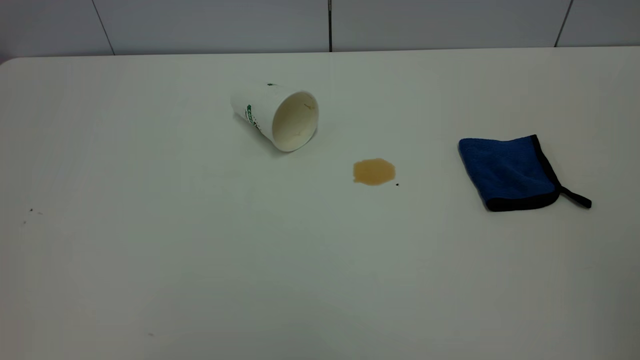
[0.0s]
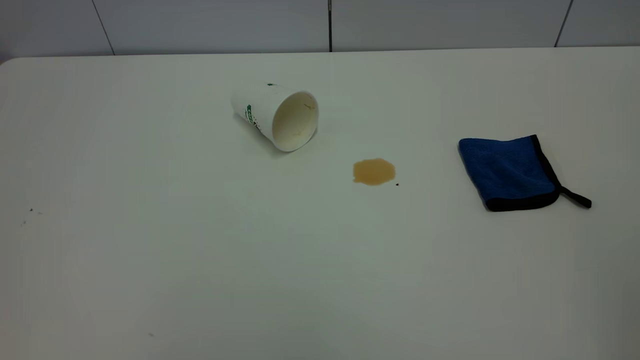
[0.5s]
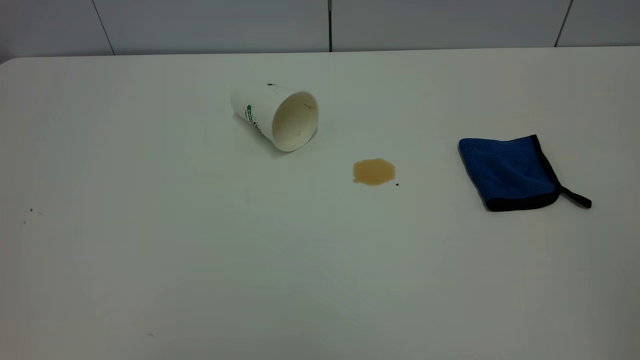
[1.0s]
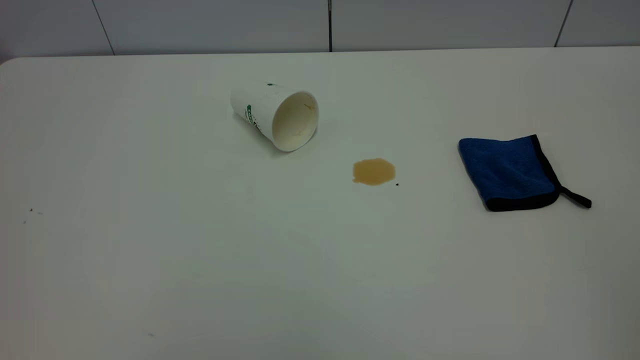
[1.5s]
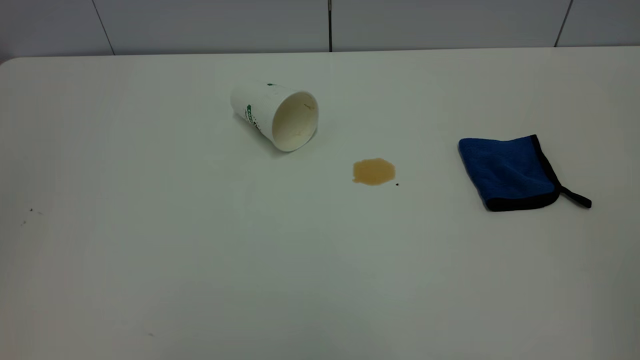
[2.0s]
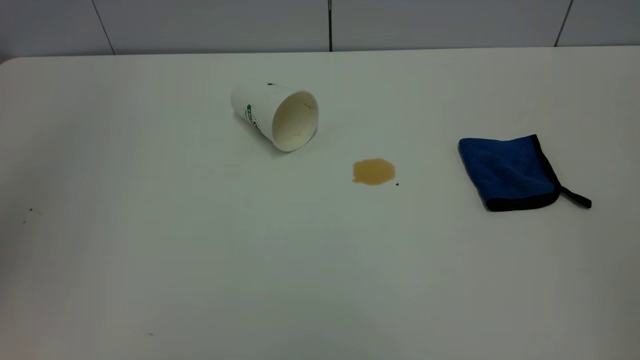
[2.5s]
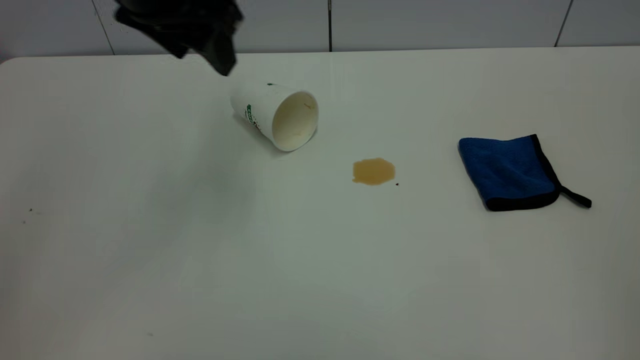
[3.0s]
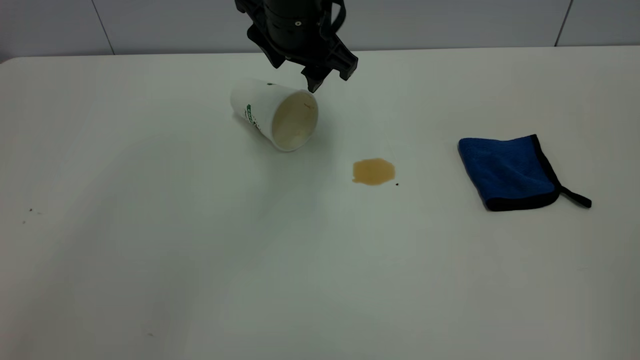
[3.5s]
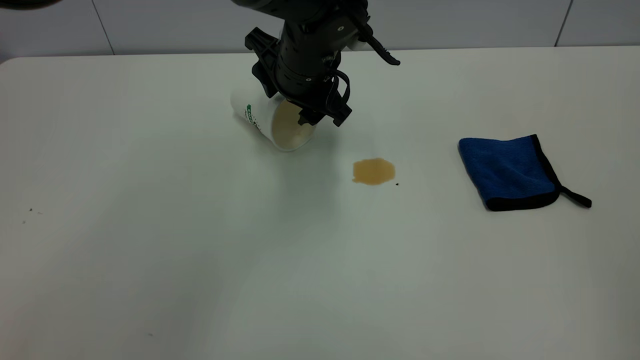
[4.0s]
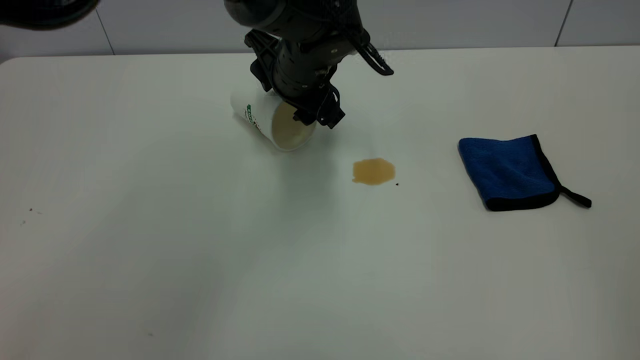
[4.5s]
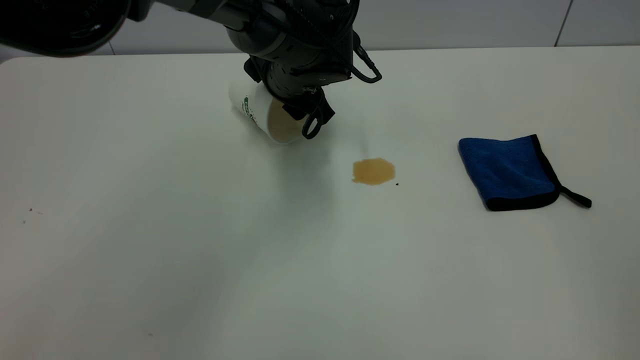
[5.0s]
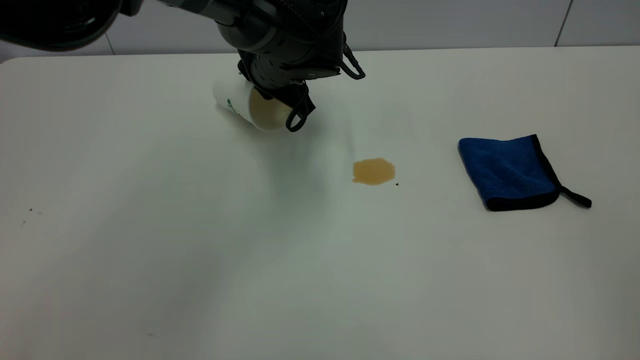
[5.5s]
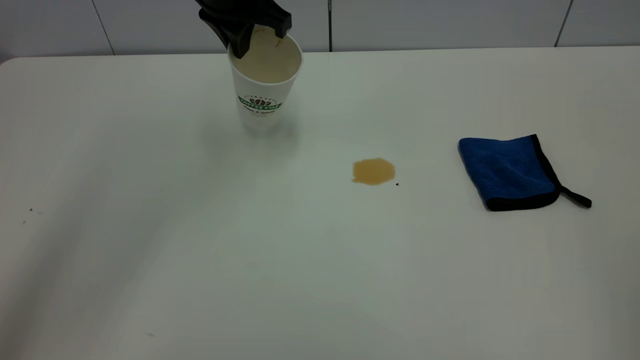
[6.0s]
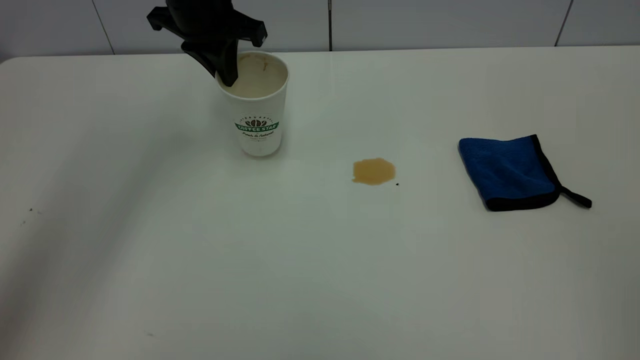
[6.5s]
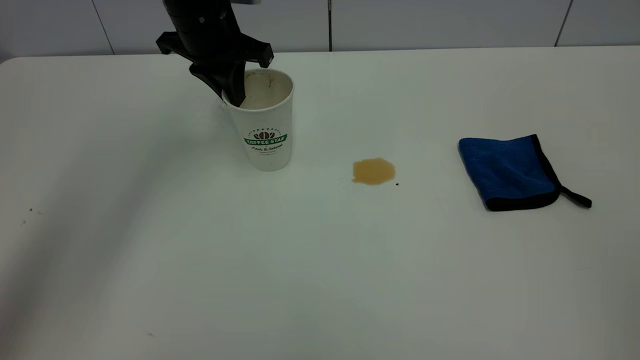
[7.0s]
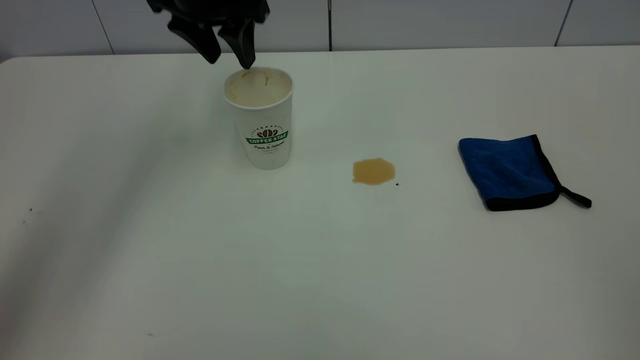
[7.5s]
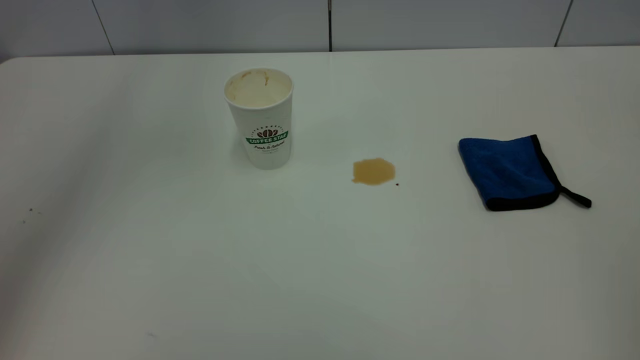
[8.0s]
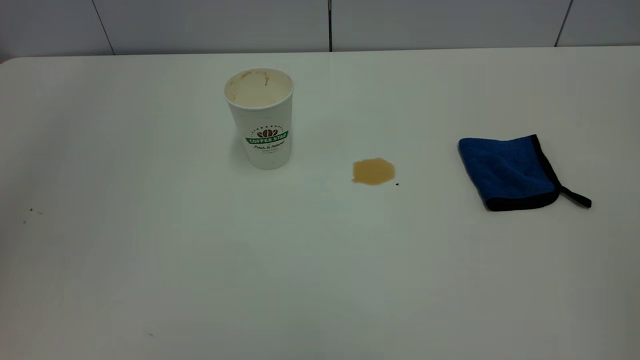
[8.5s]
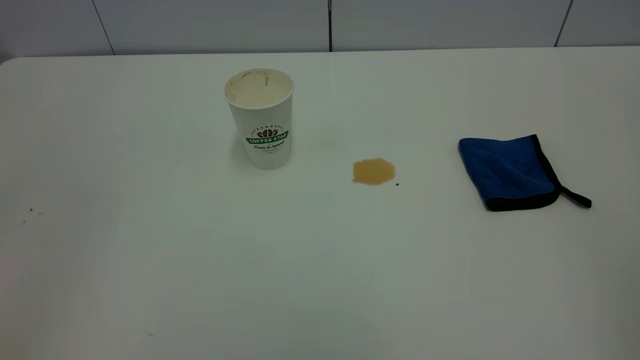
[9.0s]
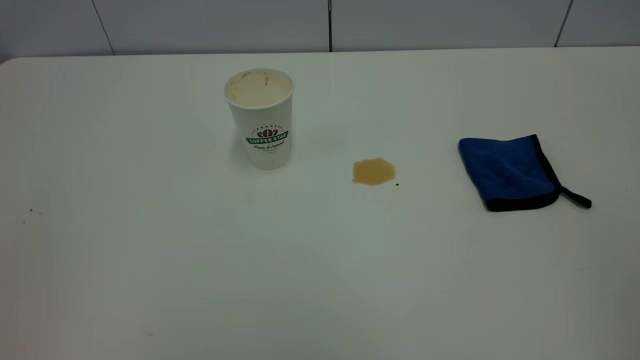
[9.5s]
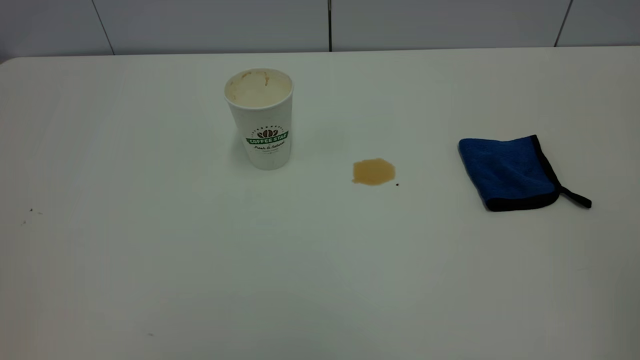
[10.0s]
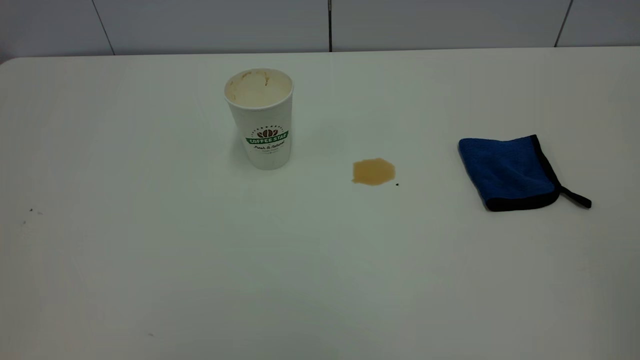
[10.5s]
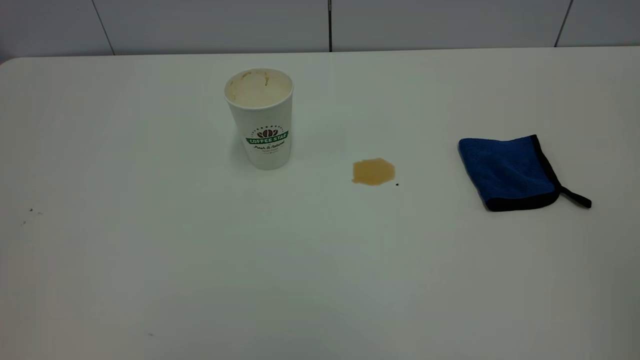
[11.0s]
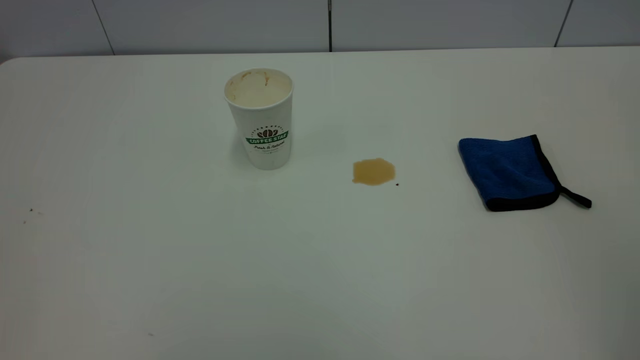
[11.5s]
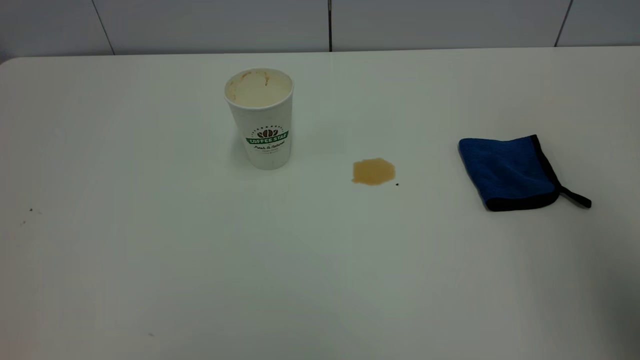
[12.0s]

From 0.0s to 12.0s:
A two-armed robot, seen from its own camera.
Task of the whole recording: the left gripper pick up the fallen cup and place it upright, the right gripper grasp the blue rag and wipe the tea stain on the table, the right gripper put the blue rag back in its original position.
Step, from 0.0s to 7.5s: Stand the paper cup upright.
From 2.0s to 4.0s: The left gripper is displaced forward, to the right and downward by roughly 50 cm.
From 4.0s to 6.0s: The left gripper goes some 15 cm upward and to the left, and closes.
From 6.0s to 8.0s: The left gripper is displaced upward by approximately 25 cm, and opens up.
From 8.0s to 10.0s: The left gripper travels backward by some 40 cm.
From 10.0s to 12.0s: The right gripper travels forward by roughly 20 cm, and opens.

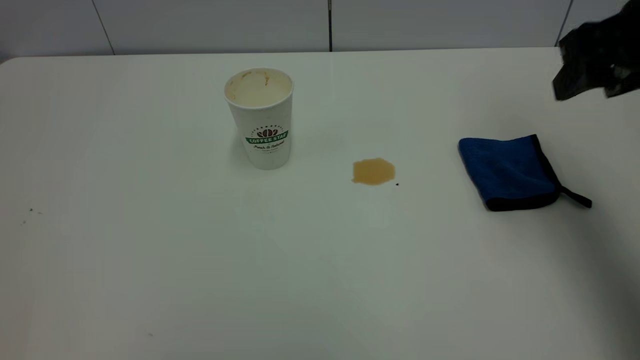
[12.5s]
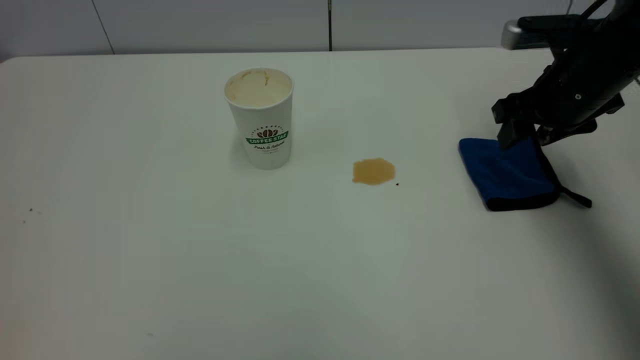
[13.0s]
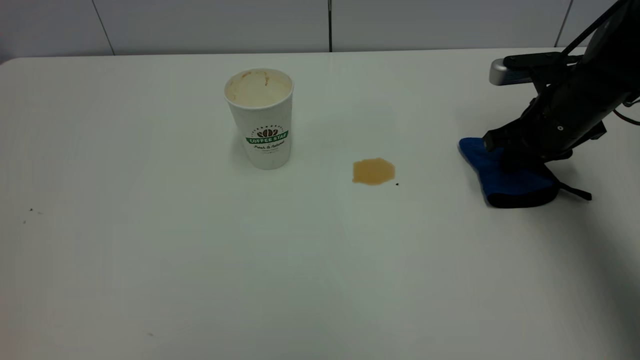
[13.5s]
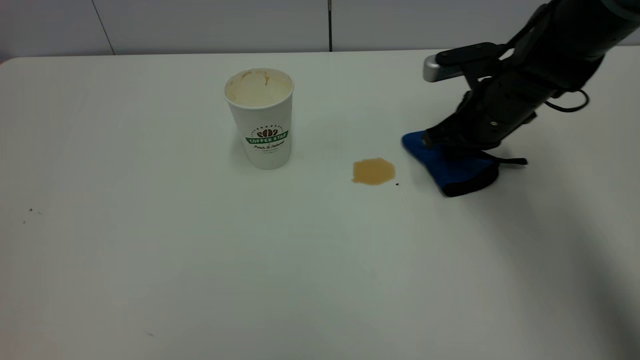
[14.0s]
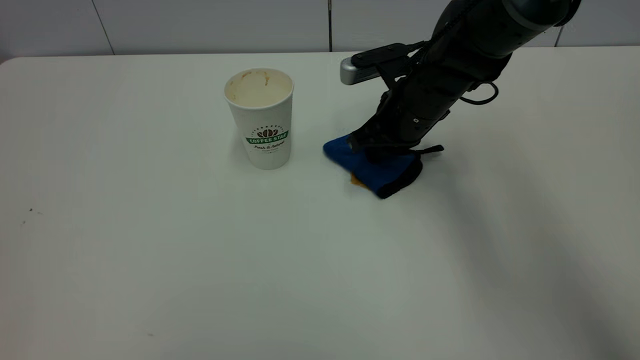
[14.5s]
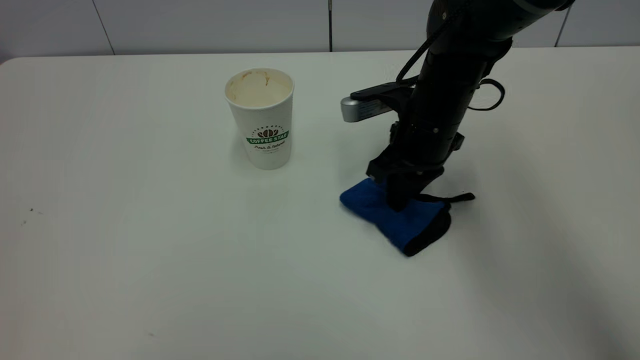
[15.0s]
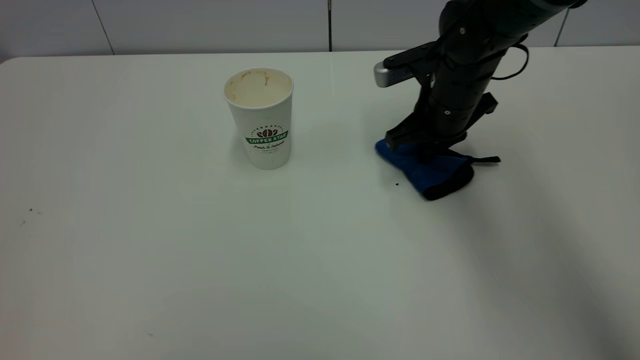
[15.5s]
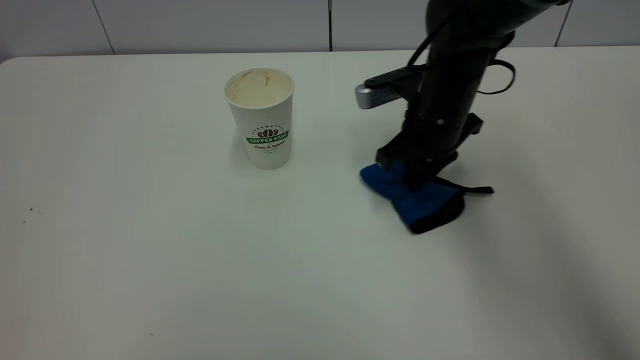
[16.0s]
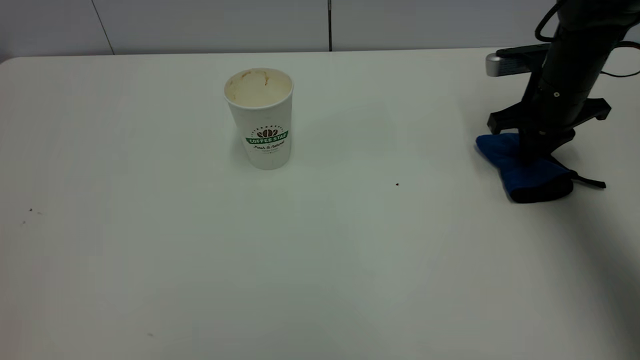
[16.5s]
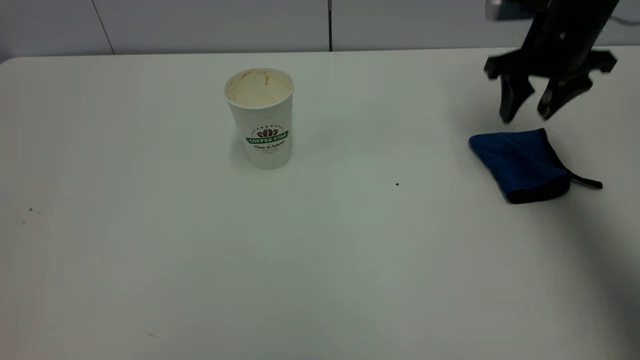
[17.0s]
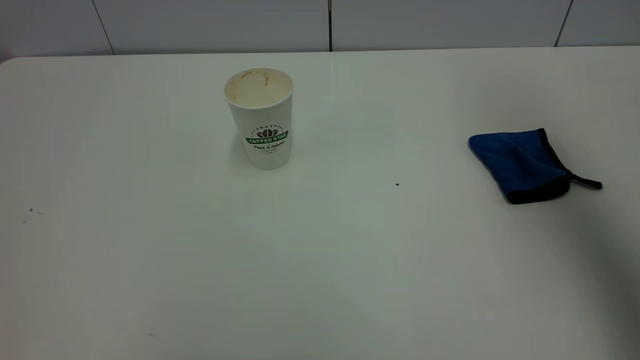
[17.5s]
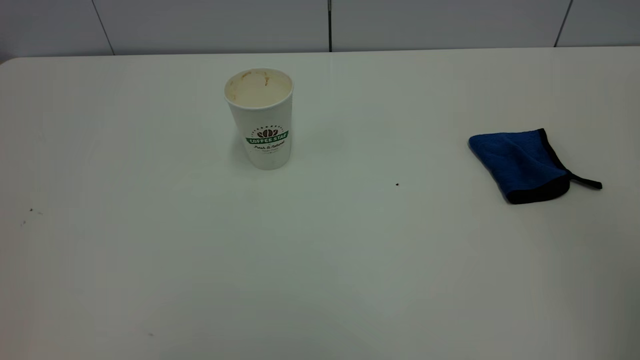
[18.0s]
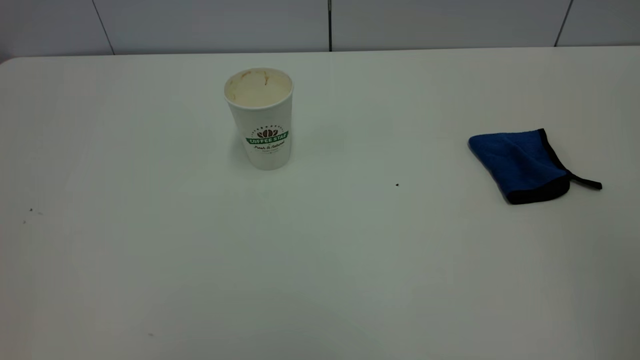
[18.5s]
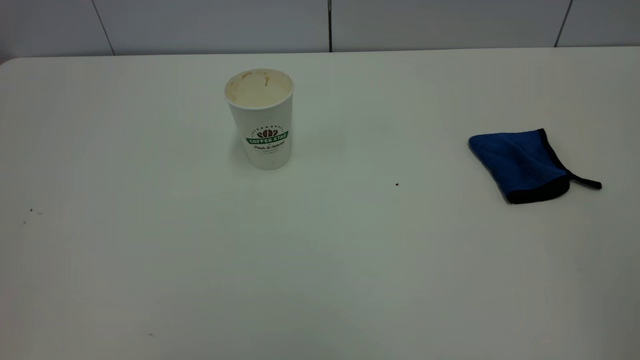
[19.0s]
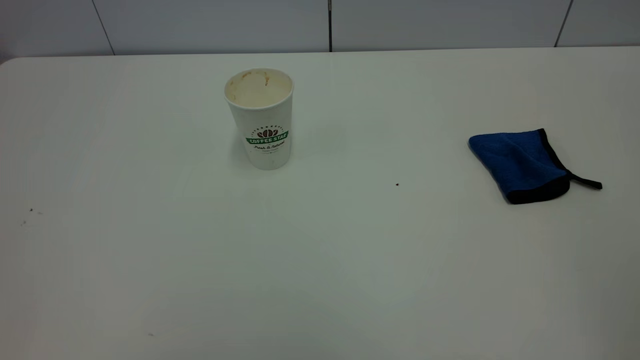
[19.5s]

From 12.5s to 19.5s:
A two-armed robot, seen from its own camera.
Task of the whole recording: the left gripper pick up the fallen cup and place it upright, the right gripper grasp the blue rag and wipe the tea stain on the table, the right gripper put the blue rag back in its original position.
Step, from 12.5s to 17.0s: Wipe the stains off the table with a rag.
From 12.5s to 14.5s: The right gripper moves to the left, downward and forward, roughly 25 cm, and closes up.
From 16.0s to 17.5s: The right gripper heads upward, backward and to the right, covering roughly 35 cm, and opens its fingers.
From 17.5s to 19.5s: The right gripper travels backward by roughly 30 cm.
